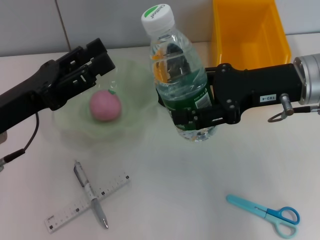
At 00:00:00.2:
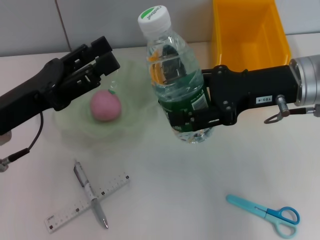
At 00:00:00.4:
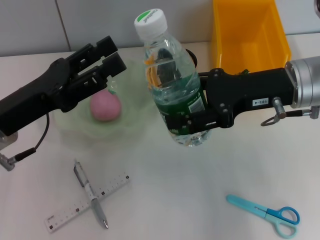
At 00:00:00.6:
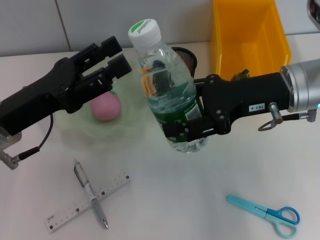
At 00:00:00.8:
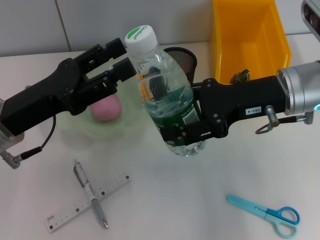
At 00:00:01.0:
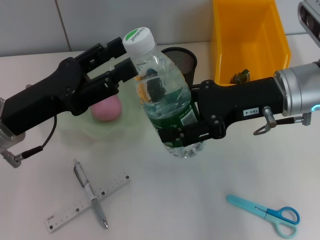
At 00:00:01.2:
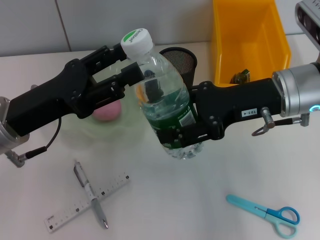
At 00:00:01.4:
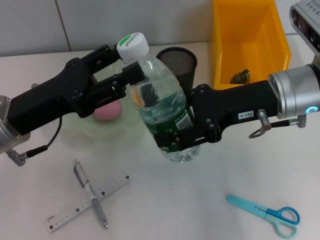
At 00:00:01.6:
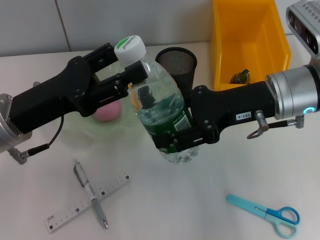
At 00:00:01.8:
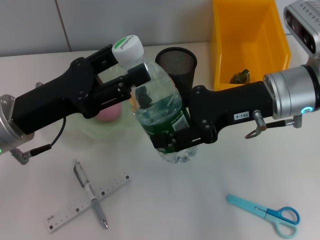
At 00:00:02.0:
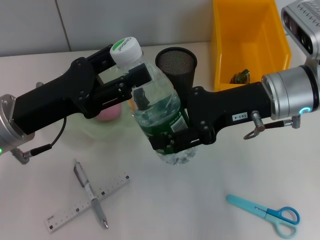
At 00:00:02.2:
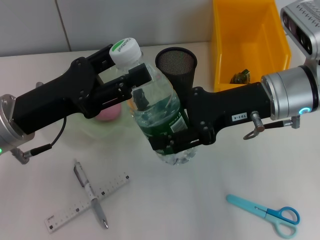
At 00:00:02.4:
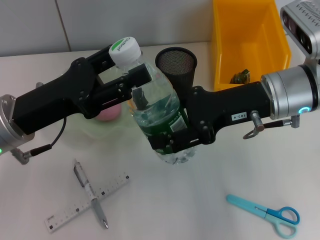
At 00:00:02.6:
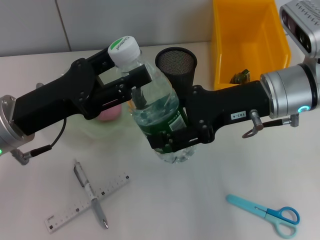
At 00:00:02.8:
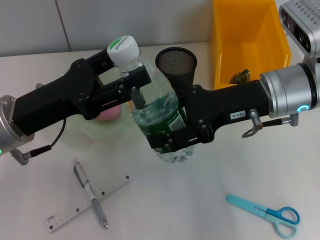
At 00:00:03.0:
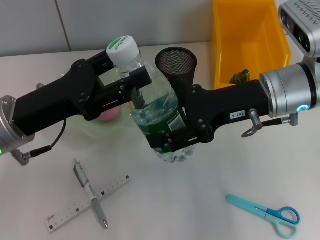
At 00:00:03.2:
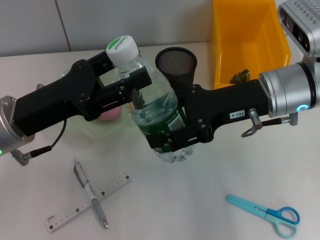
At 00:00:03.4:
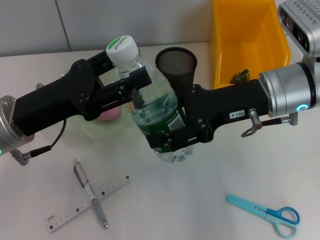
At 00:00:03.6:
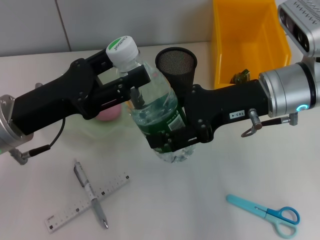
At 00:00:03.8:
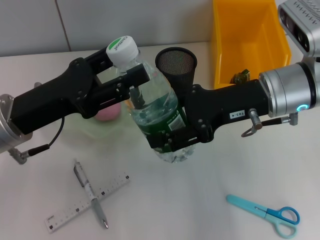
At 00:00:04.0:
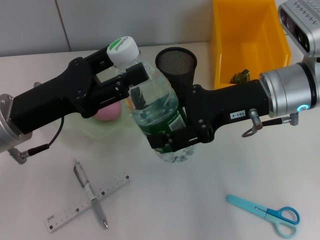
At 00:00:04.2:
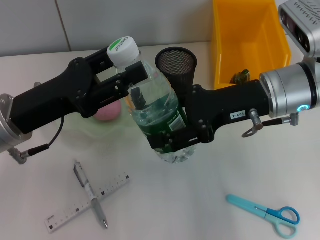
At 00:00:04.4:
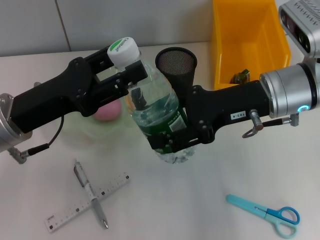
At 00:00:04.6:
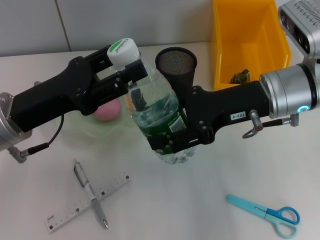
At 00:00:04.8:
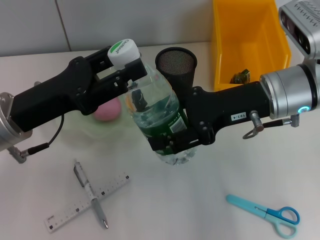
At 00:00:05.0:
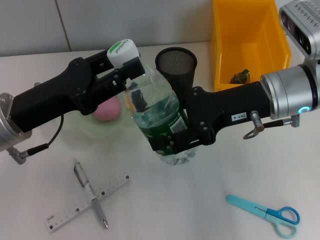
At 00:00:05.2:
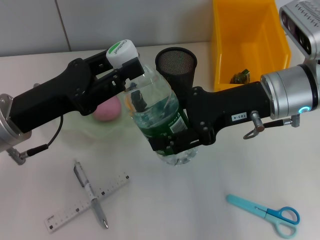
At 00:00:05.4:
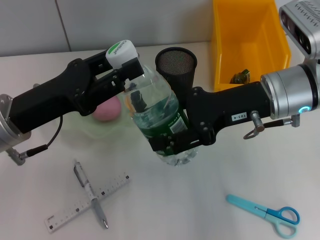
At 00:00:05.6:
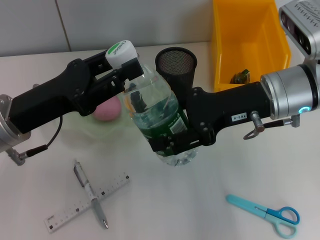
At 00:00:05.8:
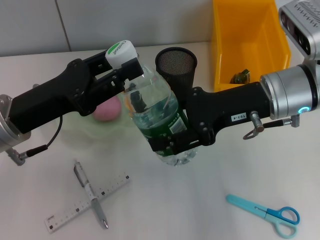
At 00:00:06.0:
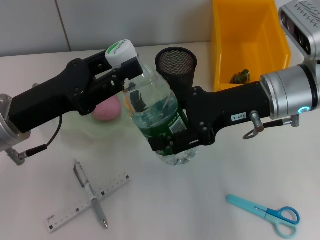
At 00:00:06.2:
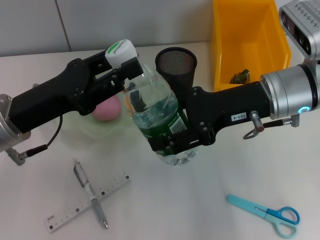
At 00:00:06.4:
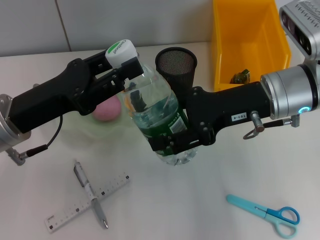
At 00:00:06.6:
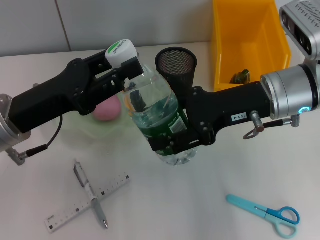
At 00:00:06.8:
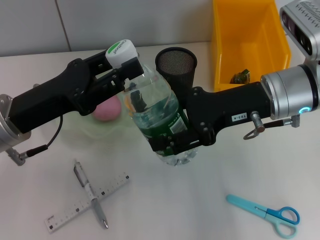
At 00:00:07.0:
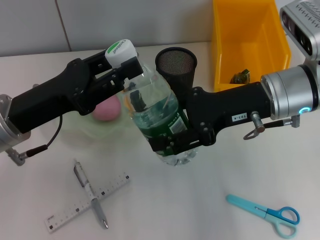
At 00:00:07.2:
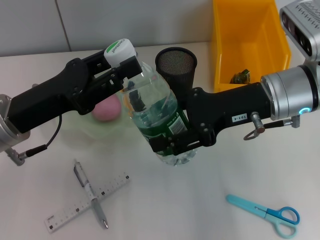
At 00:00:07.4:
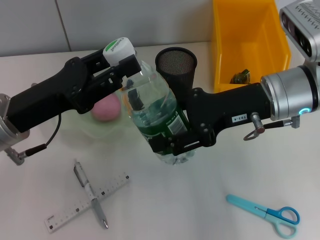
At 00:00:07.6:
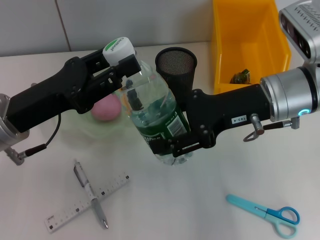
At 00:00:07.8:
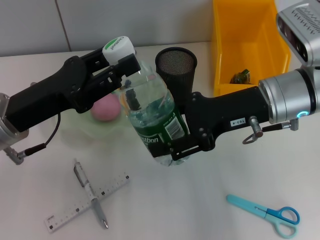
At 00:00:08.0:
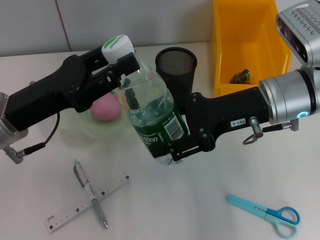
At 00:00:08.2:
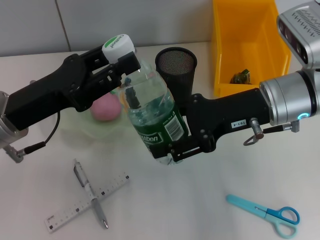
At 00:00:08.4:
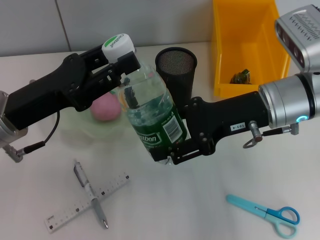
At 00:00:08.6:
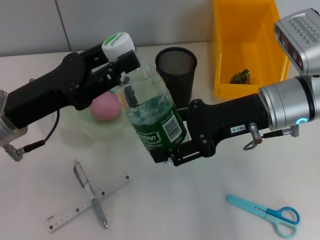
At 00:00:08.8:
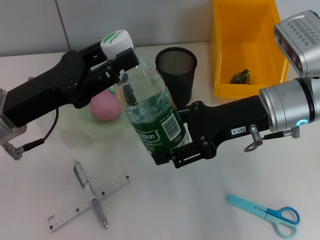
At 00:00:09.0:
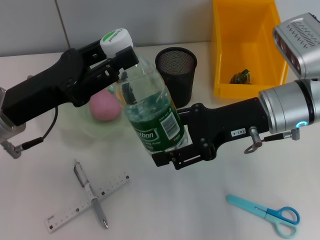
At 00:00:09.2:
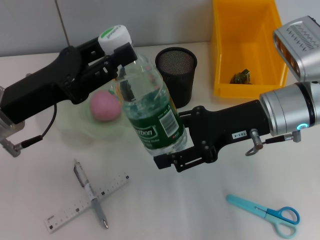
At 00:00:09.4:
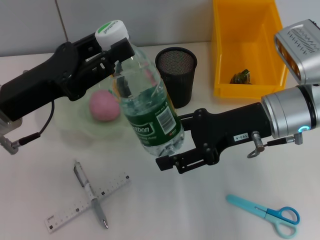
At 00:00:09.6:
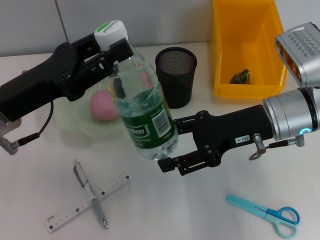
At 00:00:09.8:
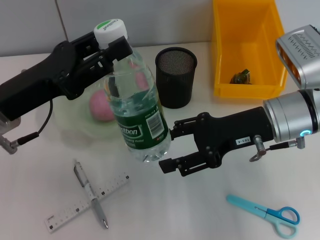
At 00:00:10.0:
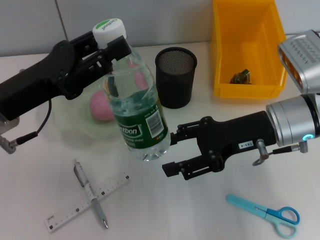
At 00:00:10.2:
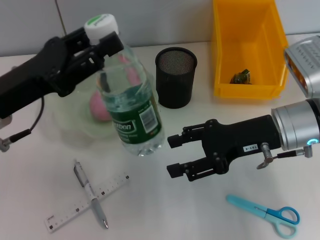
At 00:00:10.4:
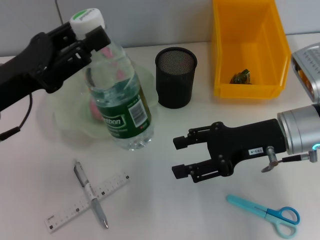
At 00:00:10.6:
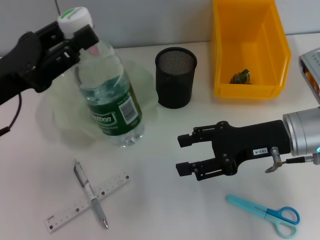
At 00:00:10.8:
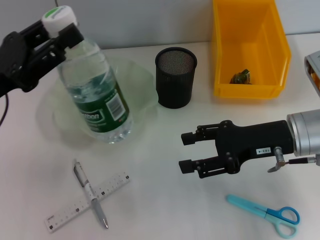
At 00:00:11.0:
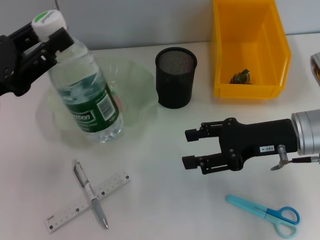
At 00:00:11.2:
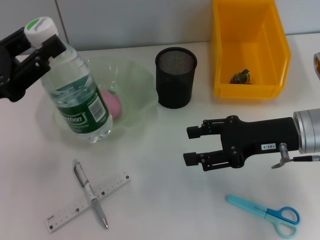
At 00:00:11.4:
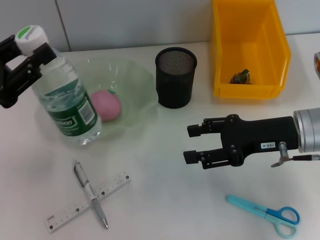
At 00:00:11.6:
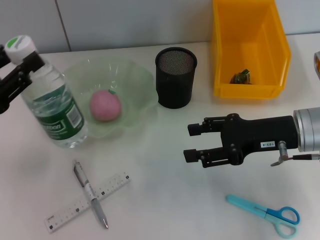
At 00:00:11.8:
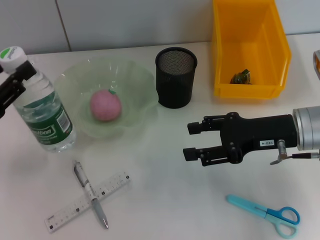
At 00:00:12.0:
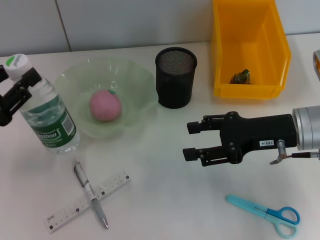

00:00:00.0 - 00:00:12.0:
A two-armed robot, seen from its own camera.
Step, 00:00:00.0 - 00:00:09.8: Pass the water bottle from the right hand to the left hand.
00:00:01.6 - 00:00:07.6: The two grippers keep their place.
00:00:07.6 - 00:00:09.0: The grippers move only a little.
00:00:10.4 - 00:00:12.0: The left gripper is displaced to the left by approximately 5 cm.

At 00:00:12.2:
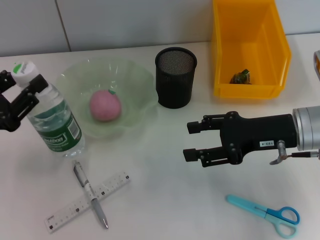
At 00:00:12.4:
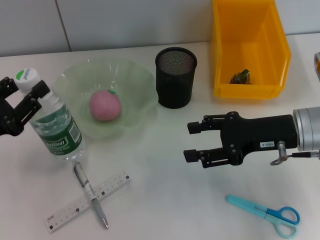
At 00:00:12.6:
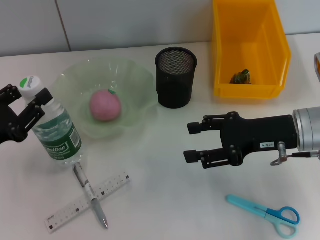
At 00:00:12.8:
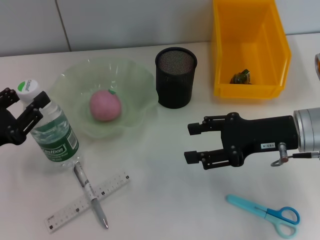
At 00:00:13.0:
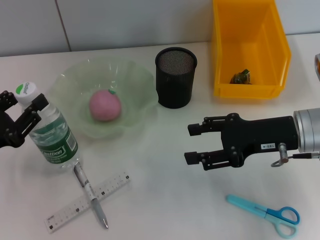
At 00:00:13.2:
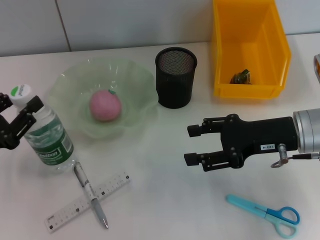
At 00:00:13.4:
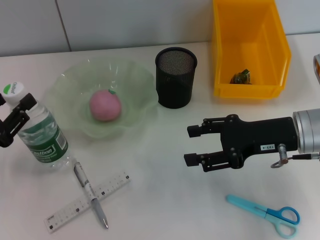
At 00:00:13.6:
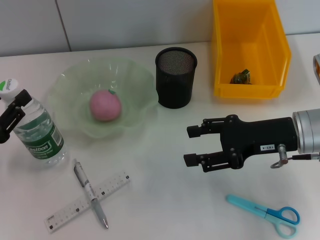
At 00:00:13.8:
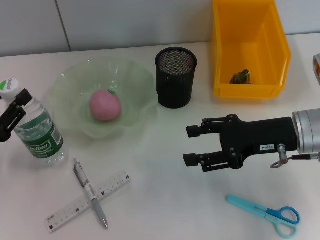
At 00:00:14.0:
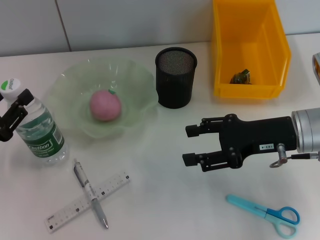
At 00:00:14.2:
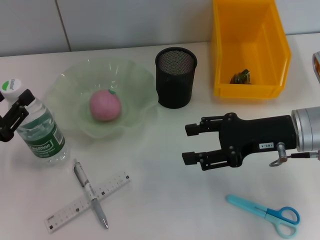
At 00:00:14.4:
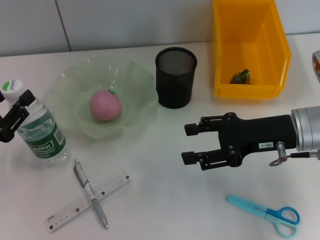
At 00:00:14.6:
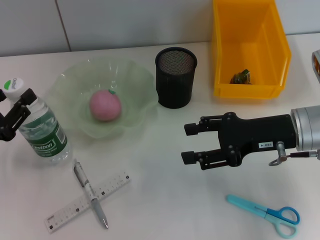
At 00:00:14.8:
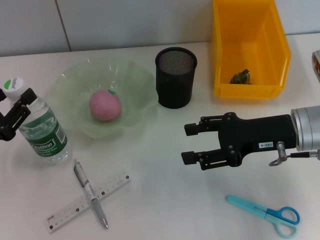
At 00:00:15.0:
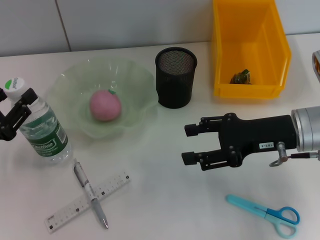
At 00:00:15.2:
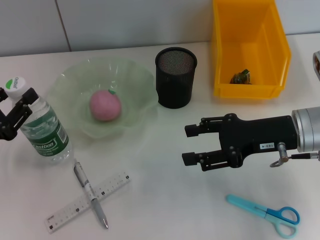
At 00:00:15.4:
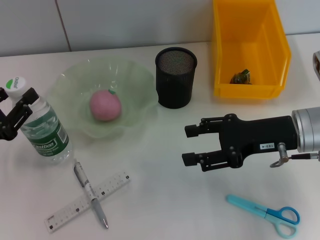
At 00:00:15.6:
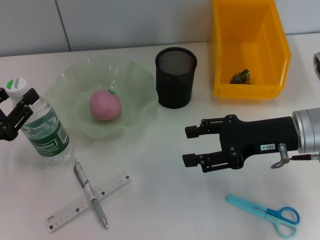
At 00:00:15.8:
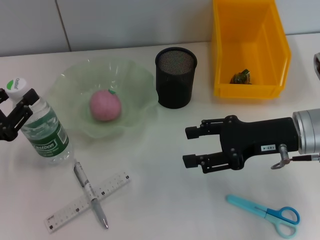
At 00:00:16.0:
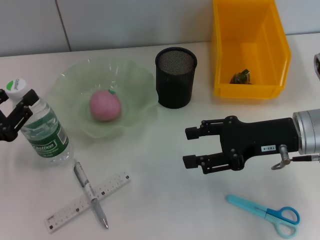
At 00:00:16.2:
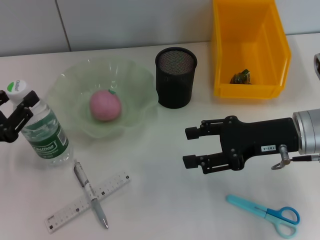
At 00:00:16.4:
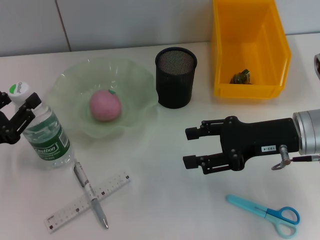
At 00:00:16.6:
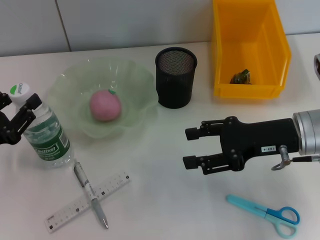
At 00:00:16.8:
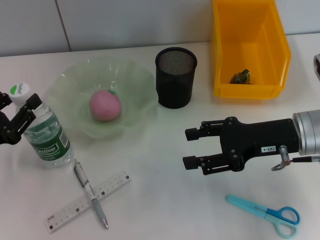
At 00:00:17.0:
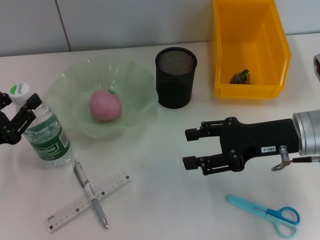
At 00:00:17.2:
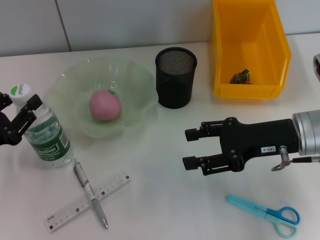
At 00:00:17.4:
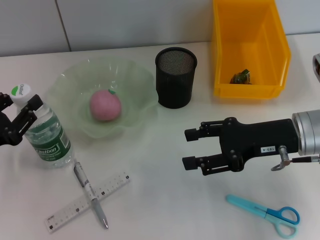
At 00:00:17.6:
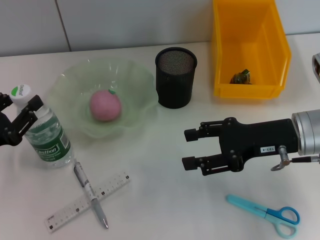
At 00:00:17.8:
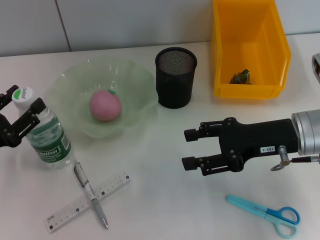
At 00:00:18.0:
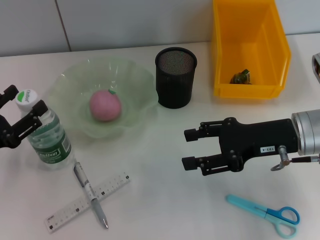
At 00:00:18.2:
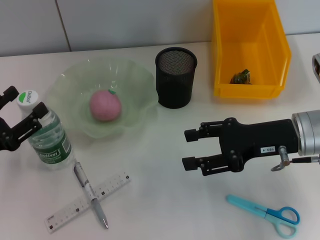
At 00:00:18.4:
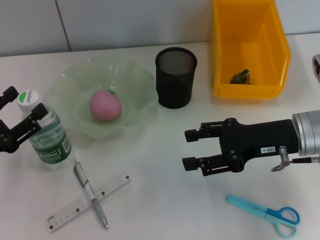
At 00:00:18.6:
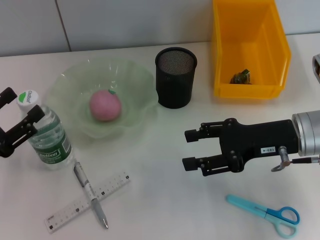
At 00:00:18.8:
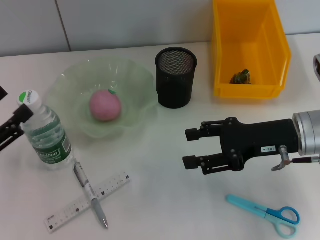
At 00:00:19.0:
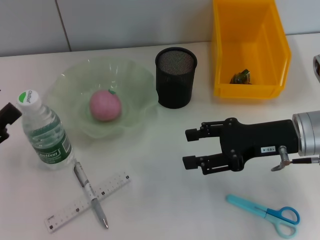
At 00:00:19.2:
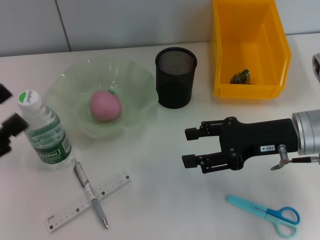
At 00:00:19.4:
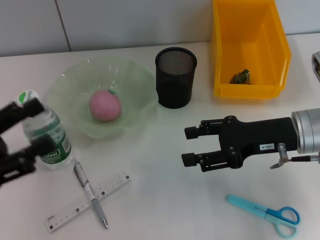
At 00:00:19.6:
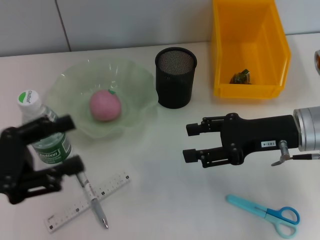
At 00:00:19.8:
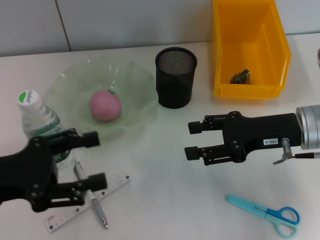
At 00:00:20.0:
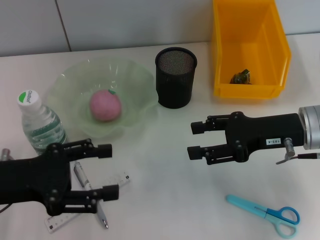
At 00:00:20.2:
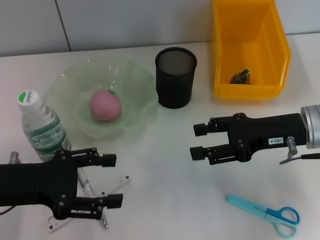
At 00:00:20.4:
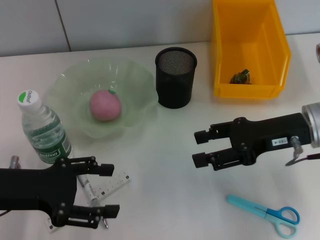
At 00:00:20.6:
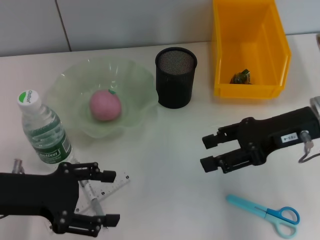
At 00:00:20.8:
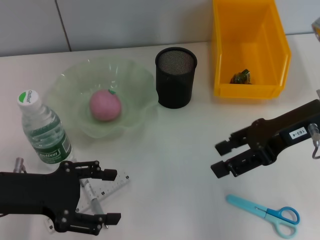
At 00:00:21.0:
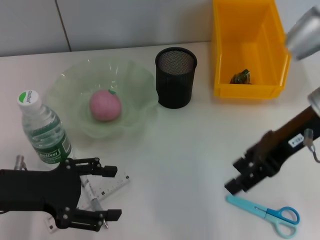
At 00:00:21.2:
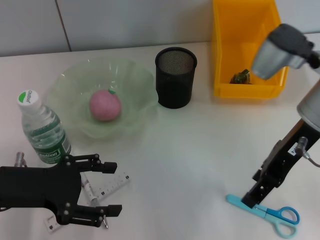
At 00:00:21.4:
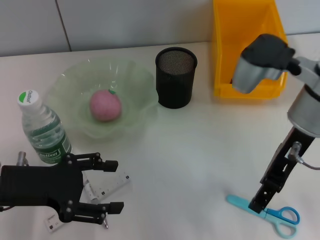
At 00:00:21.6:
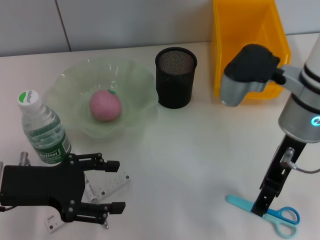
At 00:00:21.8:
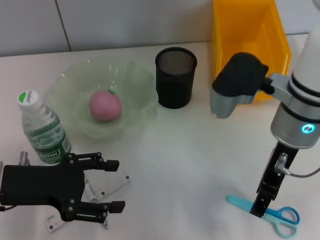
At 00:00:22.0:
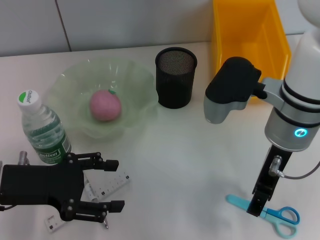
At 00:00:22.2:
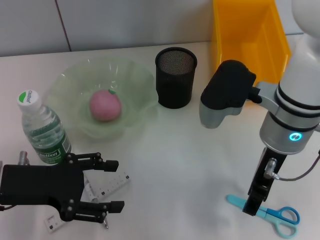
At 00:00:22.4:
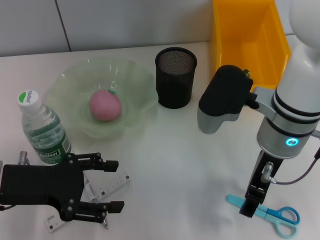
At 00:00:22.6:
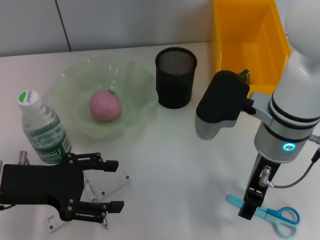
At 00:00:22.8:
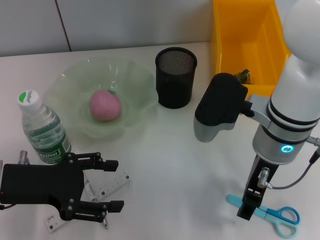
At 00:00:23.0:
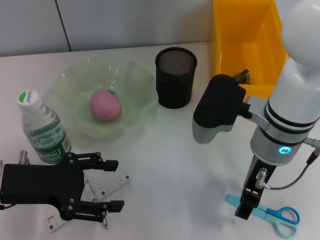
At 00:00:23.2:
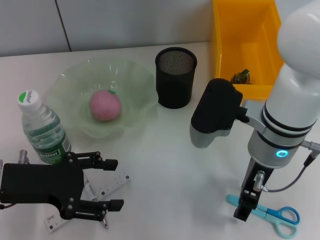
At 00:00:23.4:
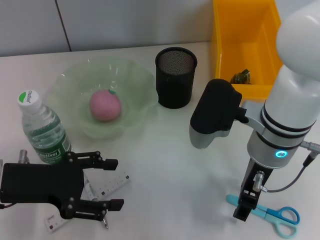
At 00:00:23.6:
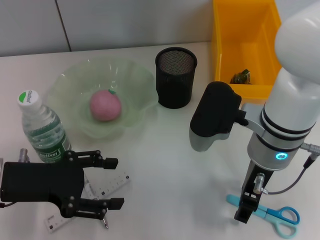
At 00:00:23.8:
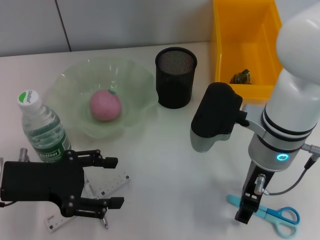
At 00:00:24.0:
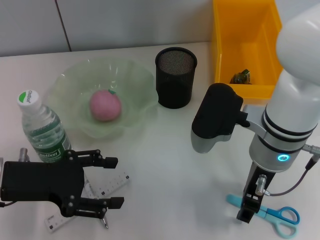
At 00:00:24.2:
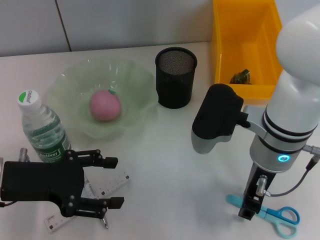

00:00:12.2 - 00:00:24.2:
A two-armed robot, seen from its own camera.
Step, 00:00:12.2 - 00:00:18.8: Place the water bottle on the table with the left hand.
00:00:12.2 - 00:00:13.8: The grippers make only small movements.
00:00:13.8 - 00:00:16.6: Neither gripper changes place.
00:00:16.6 - 00:00:18.2: The left gripper opens up.
00:00:18.2 - 00:00:19.8: The left gripper goes some 5 cm upward.
00:00:19.8 - 00:00:21.2: The right gripper is displaced upward by about 10 cm.
00:00:21.2 - 00:00:22.6: The right gripper is displaced to the left by approximately 5 cm.
00:00:22.6 - 00:00:24.2: There are only small adjustments of the grippers.
